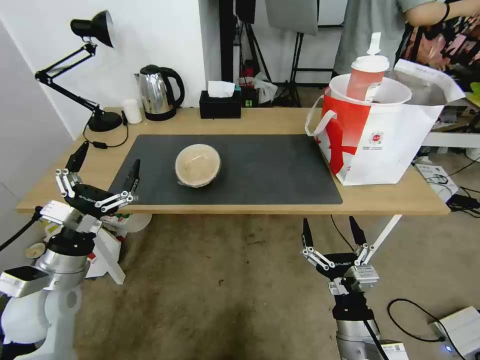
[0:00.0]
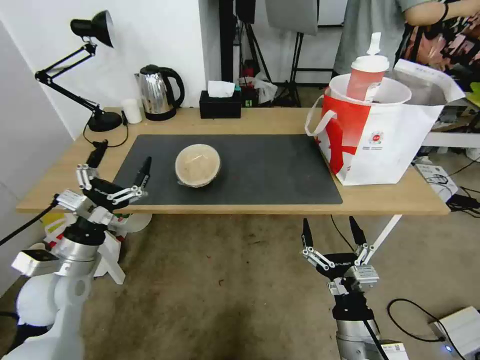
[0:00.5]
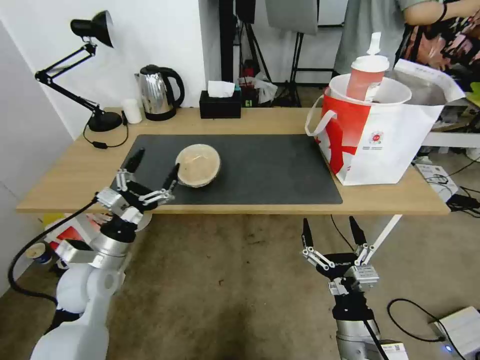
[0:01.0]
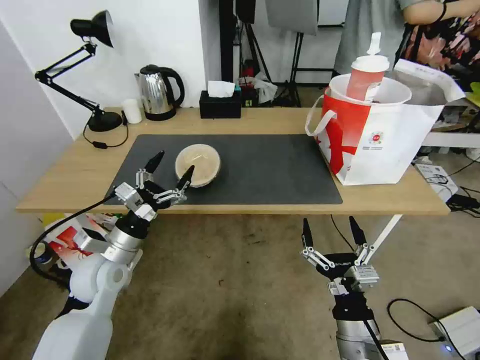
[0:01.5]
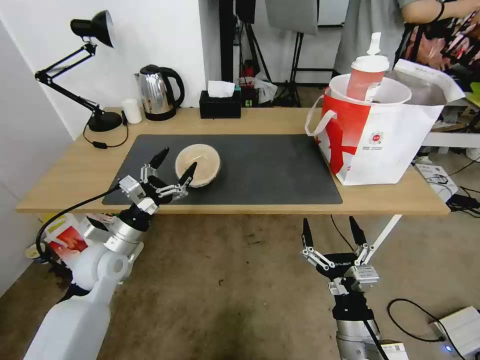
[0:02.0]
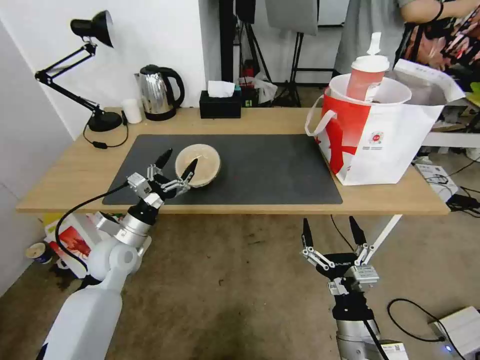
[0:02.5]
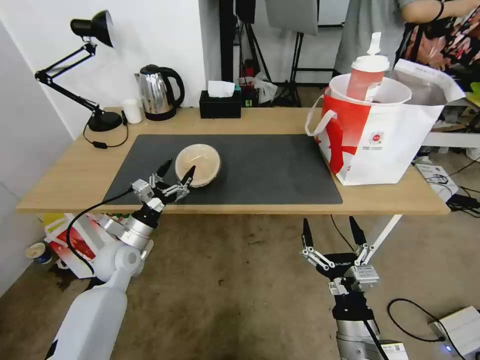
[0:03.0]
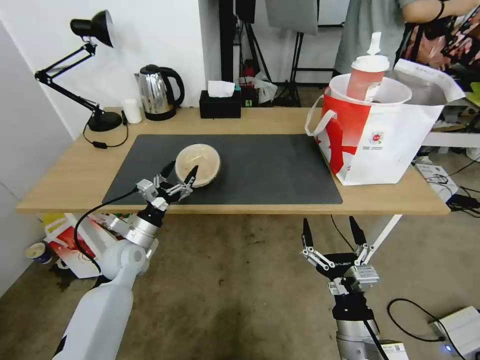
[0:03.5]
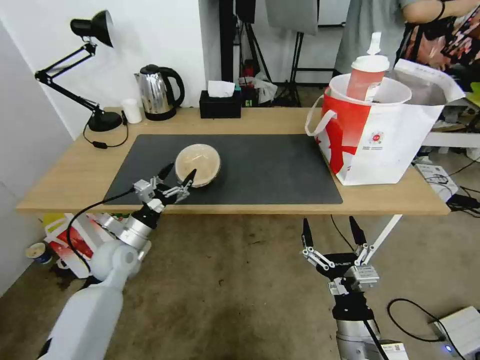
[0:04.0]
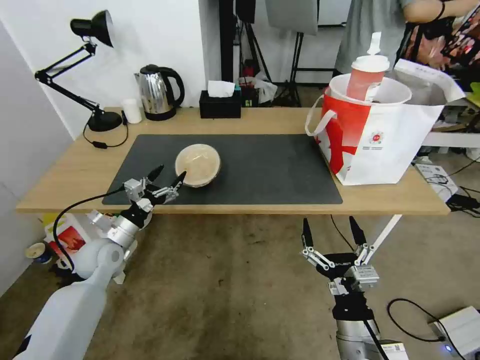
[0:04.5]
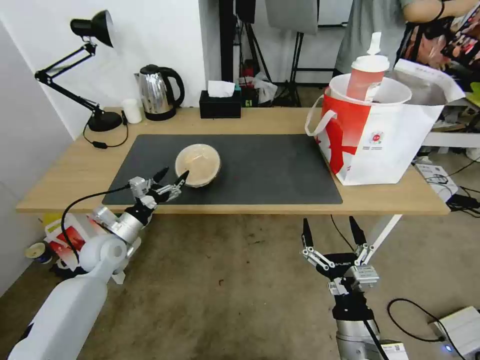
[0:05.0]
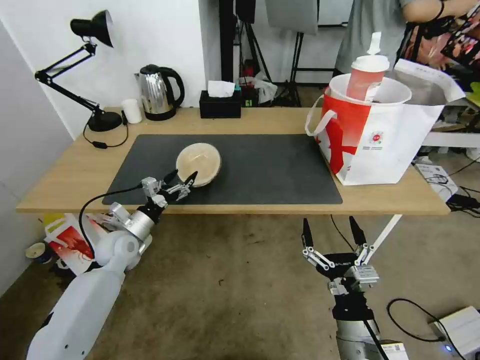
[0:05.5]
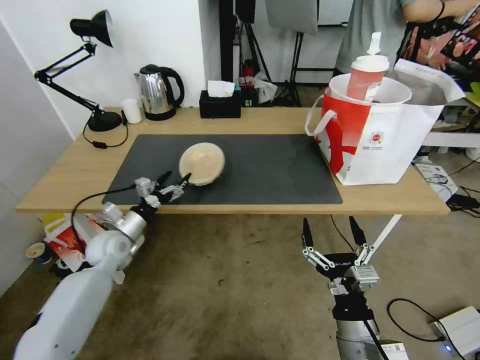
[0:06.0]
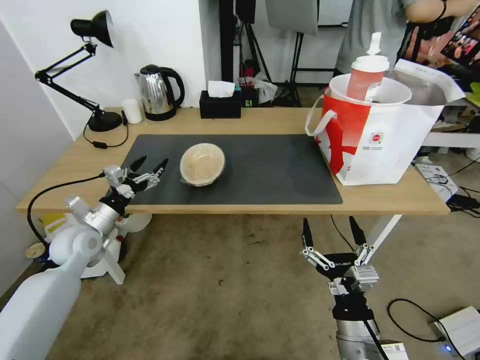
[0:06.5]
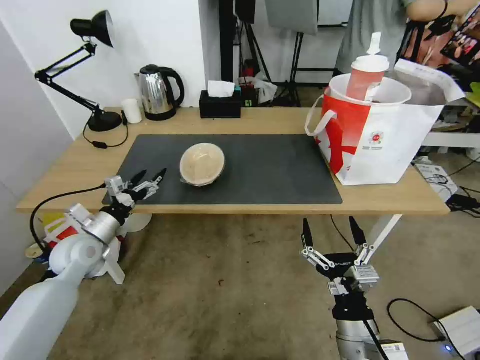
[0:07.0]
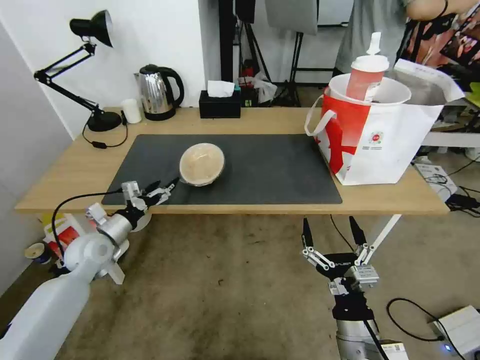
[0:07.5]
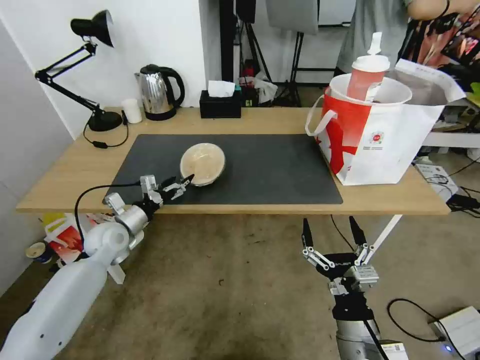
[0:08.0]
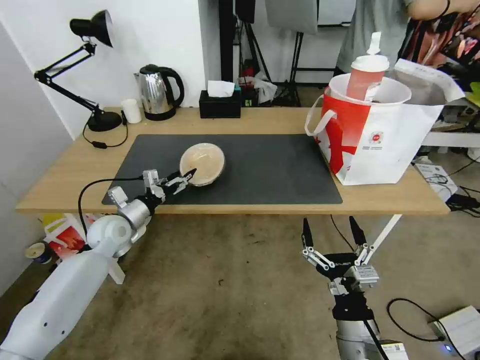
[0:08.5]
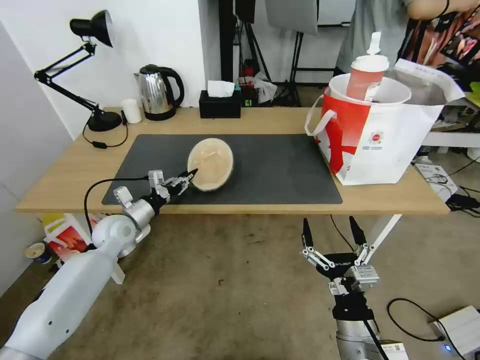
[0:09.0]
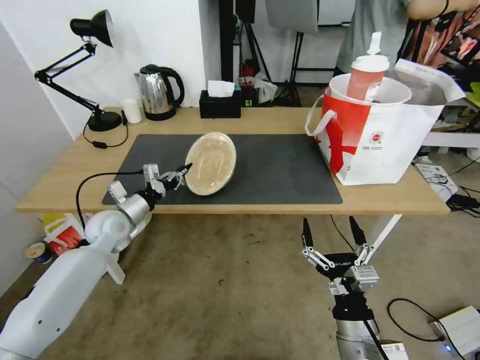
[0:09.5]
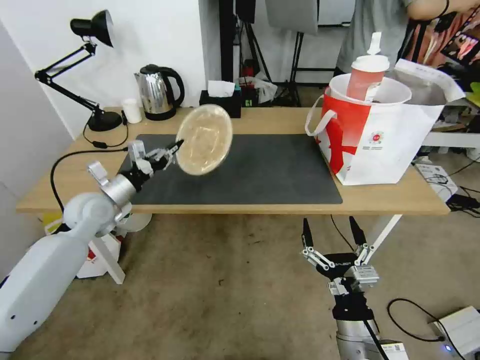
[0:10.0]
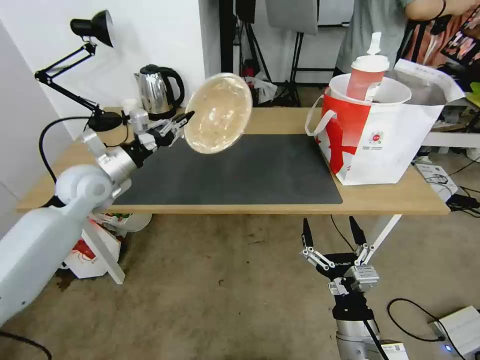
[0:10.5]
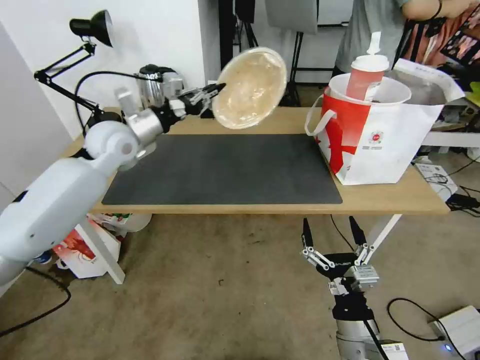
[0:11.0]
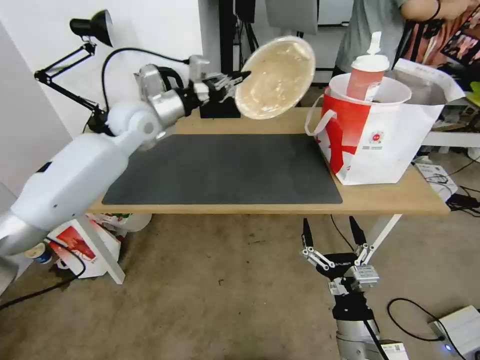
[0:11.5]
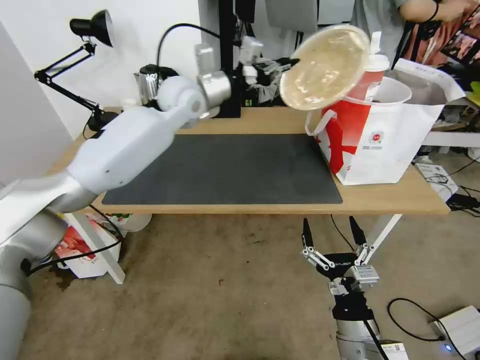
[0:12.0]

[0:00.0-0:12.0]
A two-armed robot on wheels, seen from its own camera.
Task of the whole recording: Pick up the trash from the table and place it into the takeout bag.
0:00.0 to 0:02.0: The left gripper heads forward, covering about 10 cm.
0:02.0 to 0:04.0: The left gripper shifts some 5 cm downward.
0:04.0 to 0:06.0: The left gripper changes place by approximately 5 cm.
0:08.0 to 0:10.0: The left gripper shifts some 10 cm upward, and closes.
0:10.0 to 0:12.0: The left gripper moves to the right, upward and forward, roughly 35 cm.

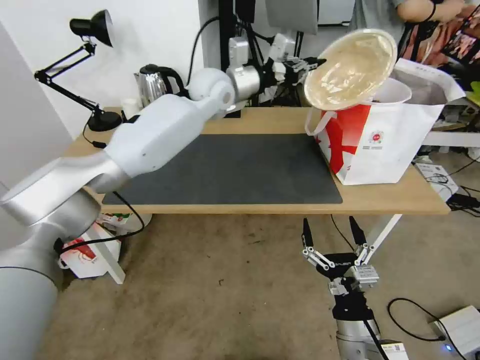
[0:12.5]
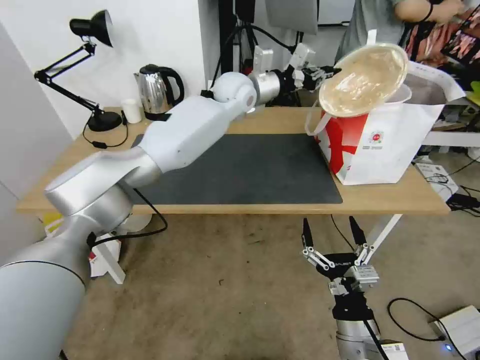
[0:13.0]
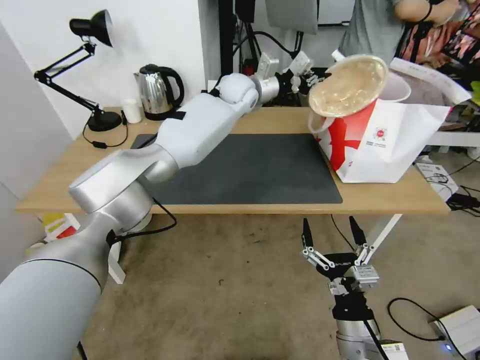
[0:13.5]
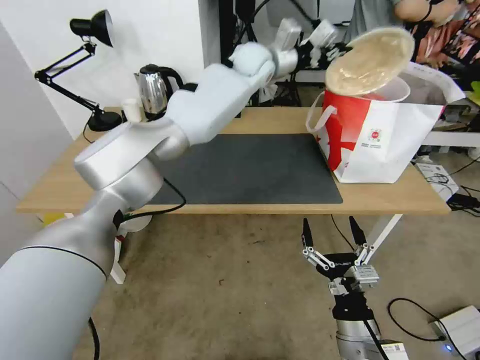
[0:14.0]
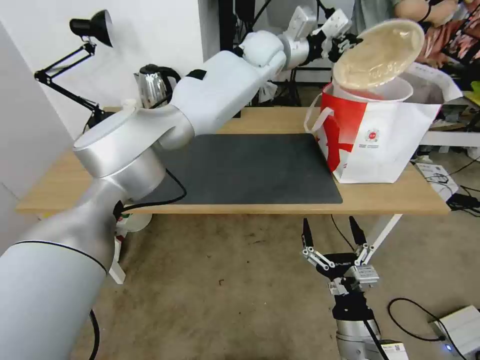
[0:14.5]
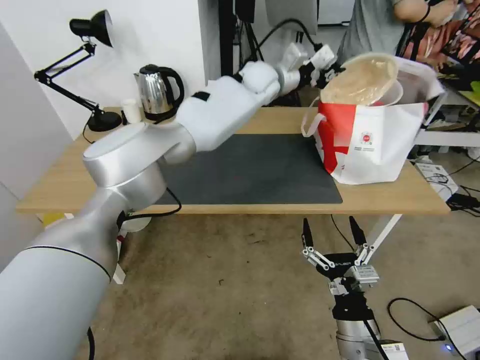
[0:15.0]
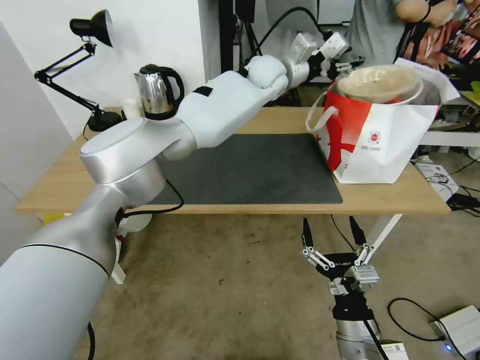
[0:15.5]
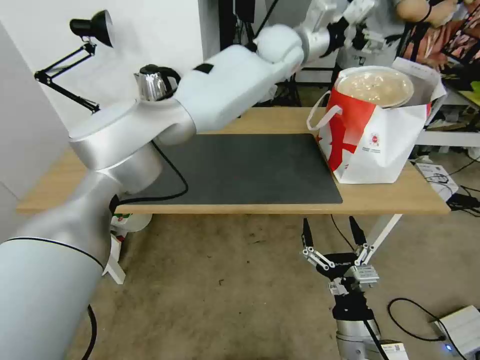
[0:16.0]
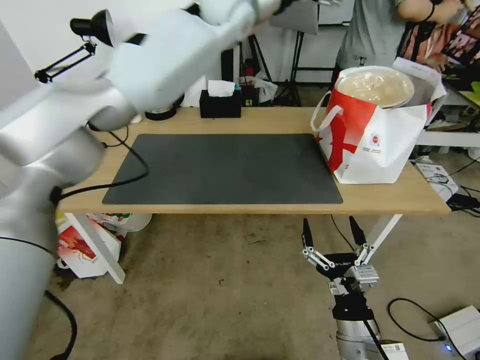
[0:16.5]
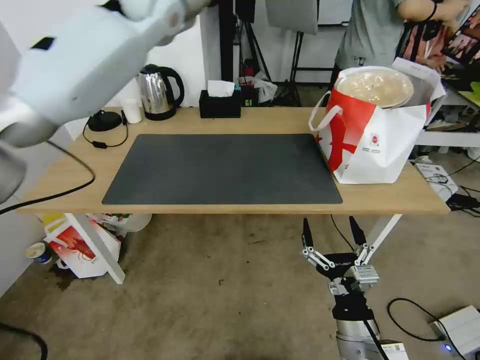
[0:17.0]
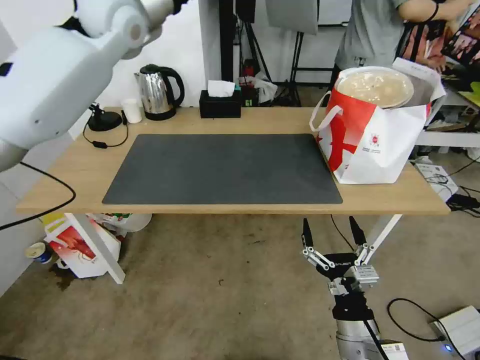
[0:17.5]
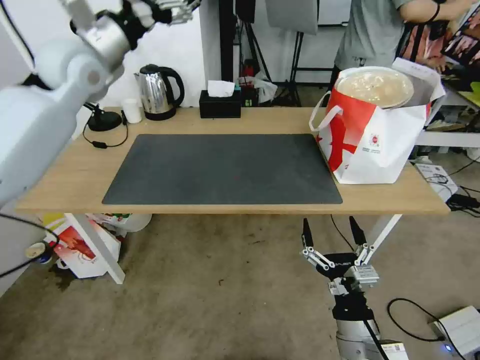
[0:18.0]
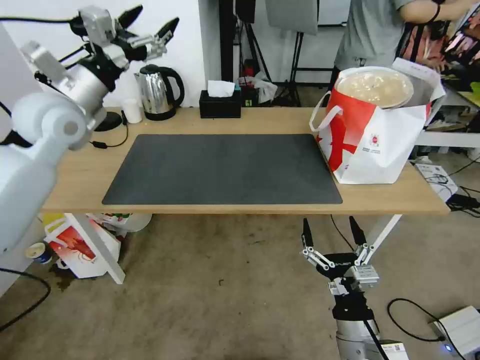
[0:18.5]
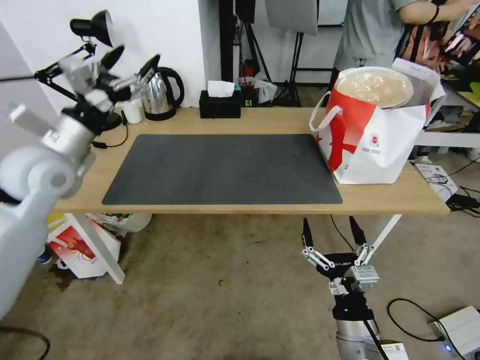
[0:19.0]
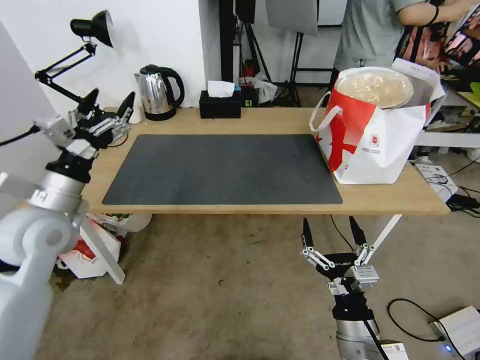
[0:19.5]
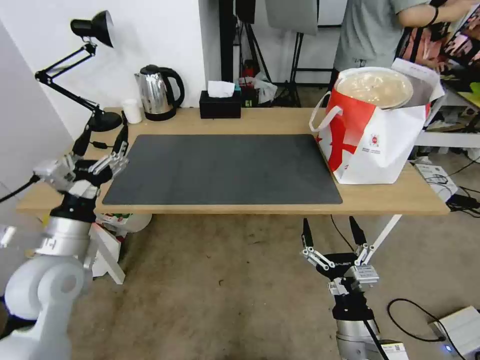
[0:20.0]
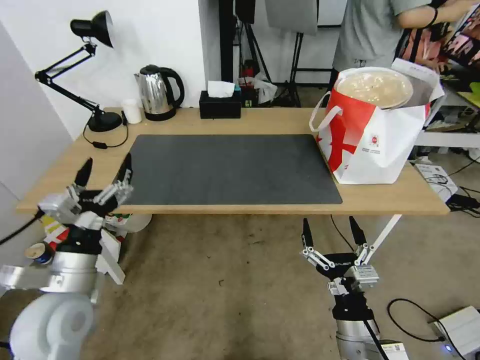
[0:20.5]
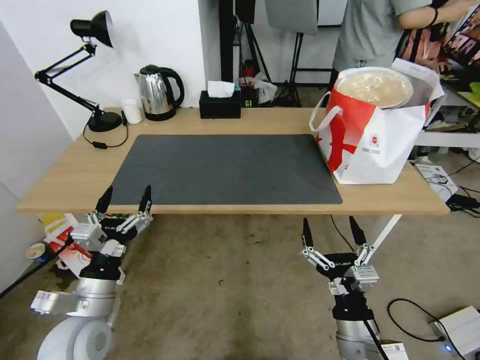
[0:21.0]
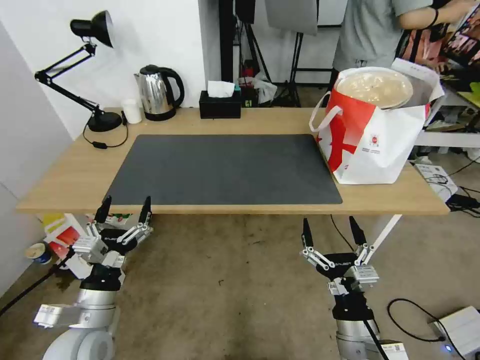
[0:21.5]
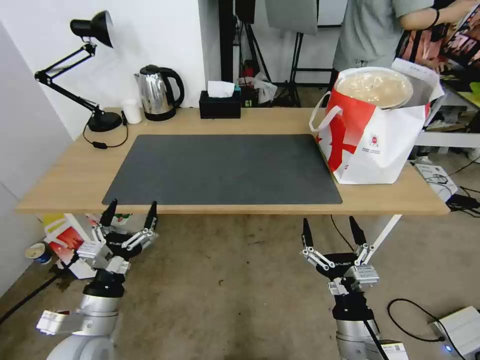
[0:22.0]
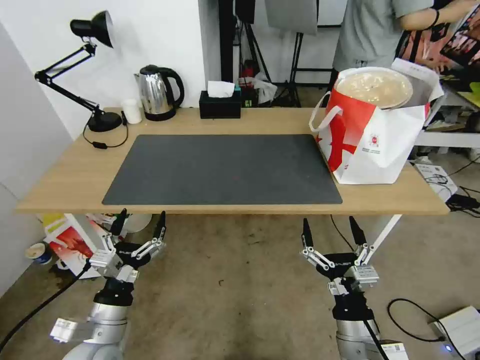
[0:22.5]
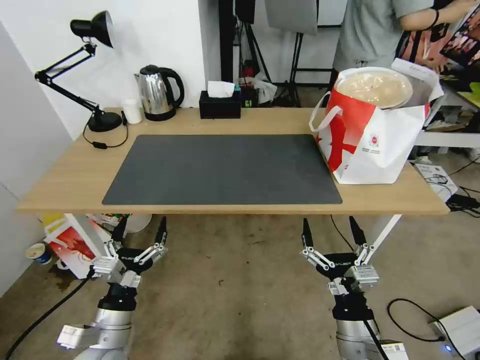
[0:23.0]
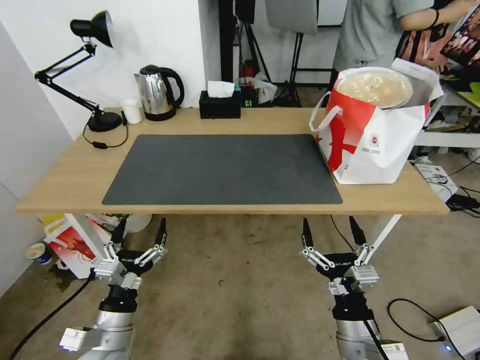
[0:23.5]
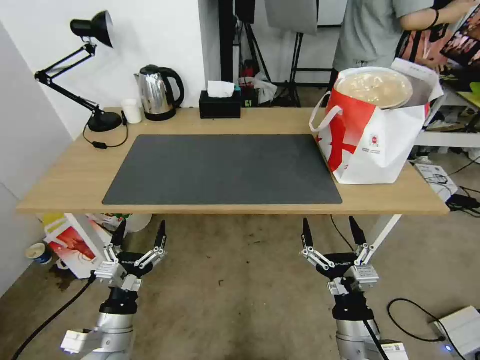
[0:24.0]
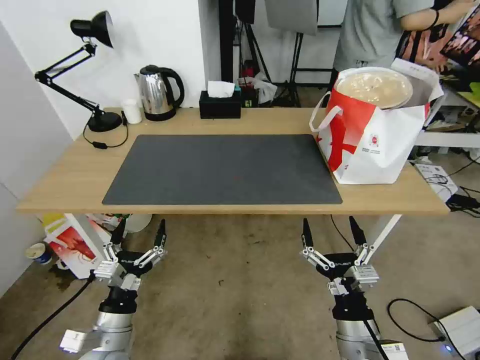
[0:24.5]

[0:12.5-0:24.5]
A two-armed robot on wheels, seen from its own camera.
Task of the whole recording: Pick up the trash from the table and place it into the takeout bag.
0:12.5 to 0:14.5: The left gripper is displaced to the right and upward by approximately 10 cm.
0:14.5 to 0:16.5: The left gripper is displaced upward and to the left by roughly 10 cm, and opens.
0:16.5 to 0:18.5: The left gripper shifts roughly 35 cm to the left, backward and downward.
0:18.5 to 0:20.5: The left gripper travels backward and downward by roughly 35 cm.
0:20.5 to 0:22.5: The left gripper is displaced downward and backward by roughly 10 cm.
0:22.5 to 0:24.5: The grippers make only small movements.
